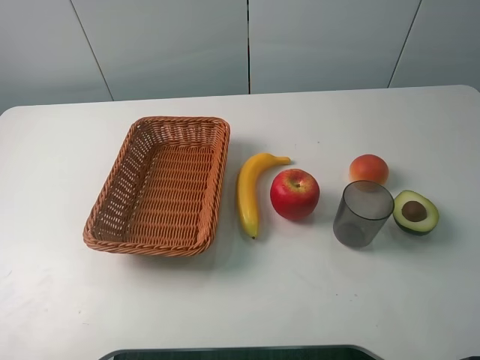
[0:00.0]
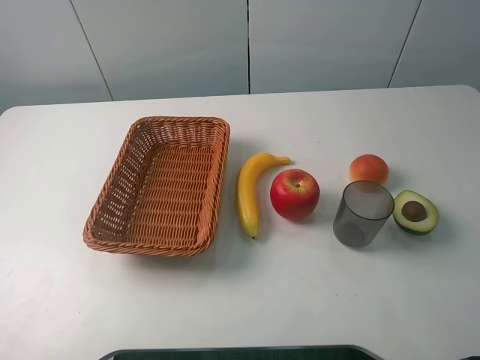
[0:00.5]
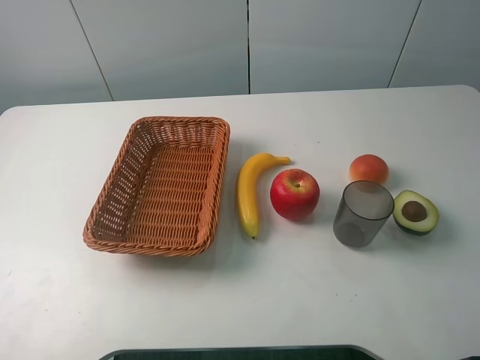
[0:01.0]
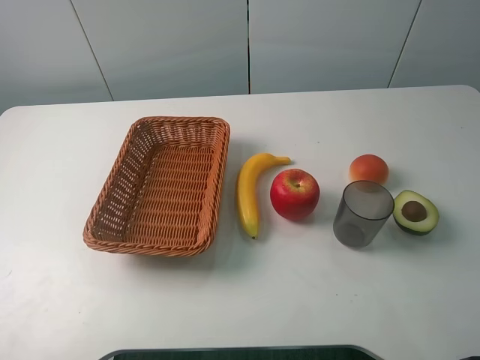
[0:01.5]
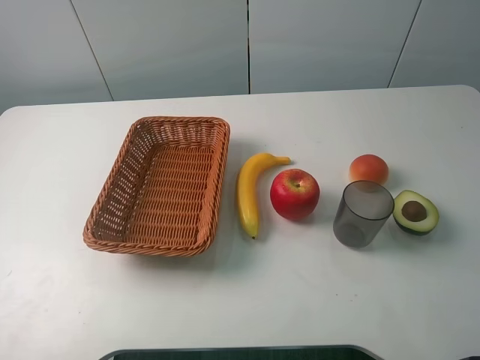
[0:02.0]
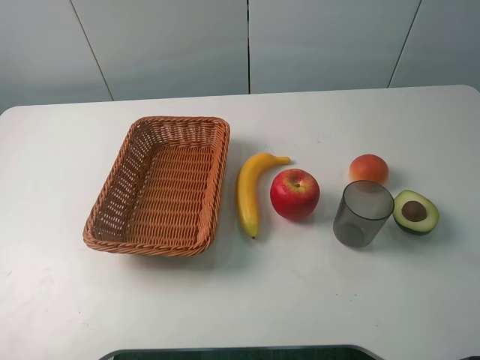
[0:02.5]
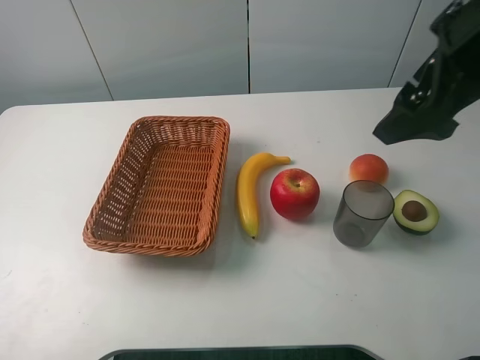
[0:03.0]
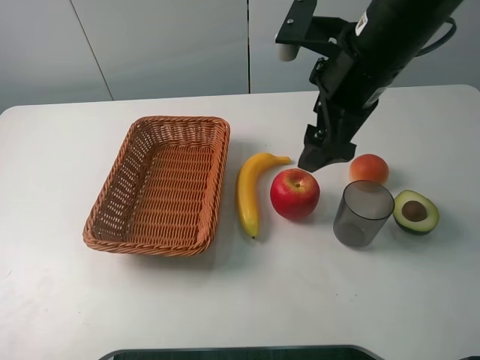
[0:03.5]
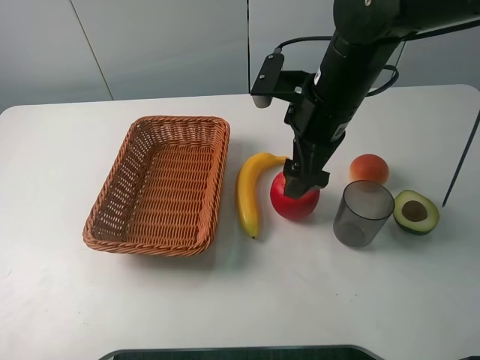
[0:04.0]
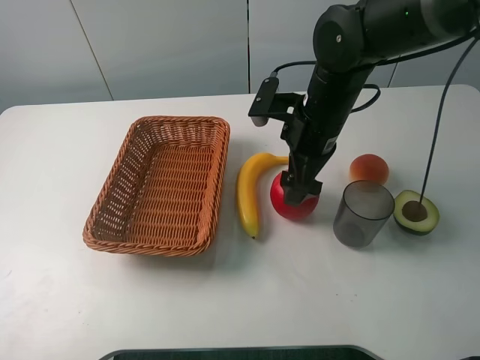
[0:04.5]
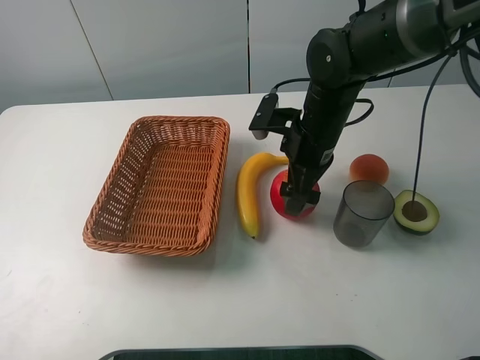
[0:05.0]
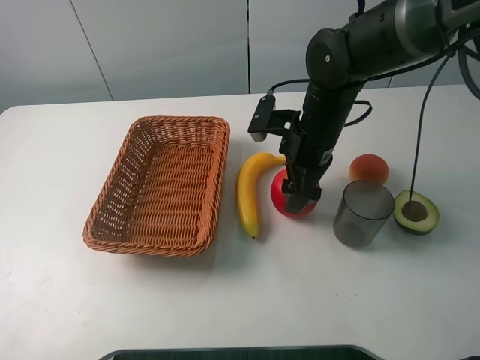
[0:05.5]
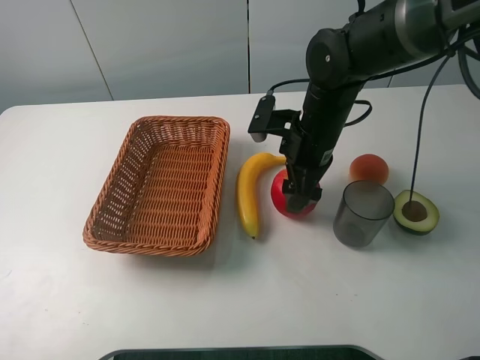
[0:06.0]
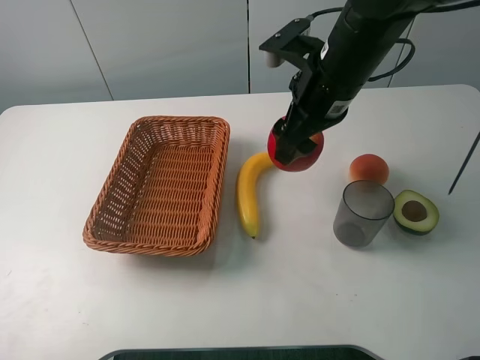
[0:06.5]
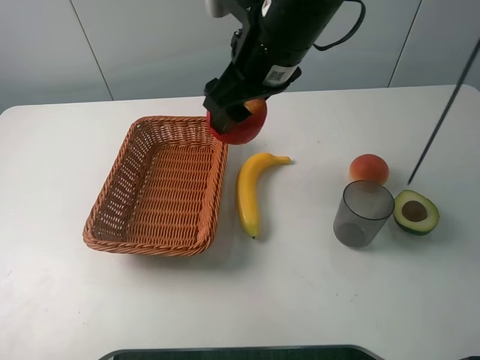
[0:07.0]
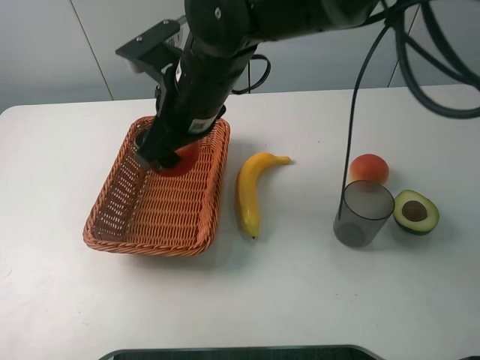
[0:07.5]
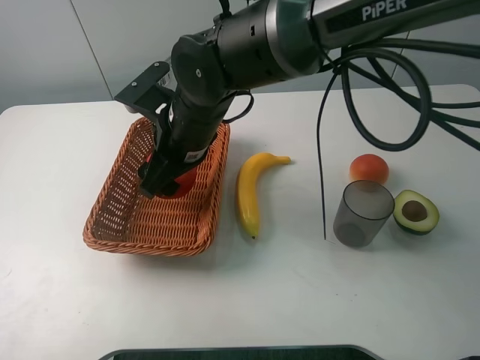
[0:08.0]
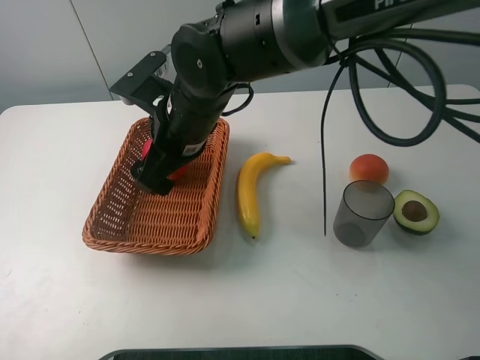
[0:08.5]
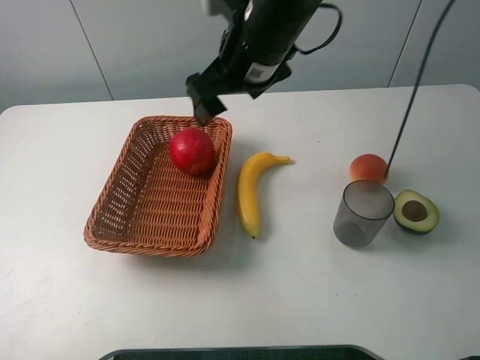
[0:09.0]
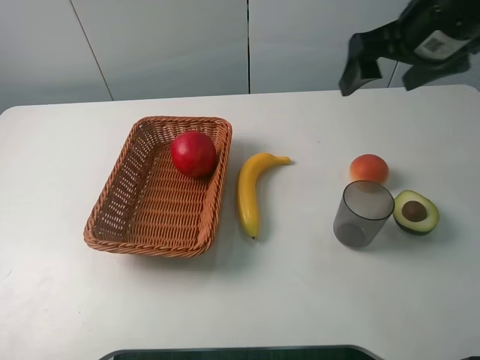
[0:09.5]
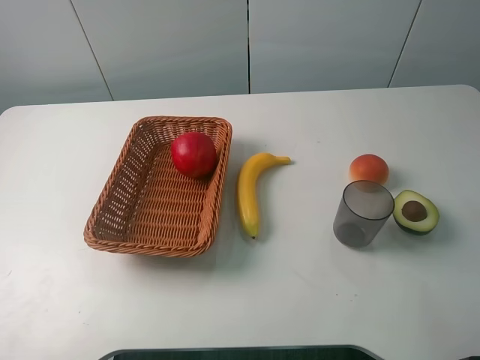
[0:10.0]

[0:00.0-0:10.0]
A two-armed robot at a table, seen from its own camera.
Task of the whole recording: randomly pick up an item from the table and put it in the basket.
Step, 0:00.0 to 0:05.0: Grasp the apple with the right gripper.
Step, 0:05.5 to 0:08.5: Place the apple into the basket with the right gripper.
0:00.0 to 0:02.0: Both grippers stay about where they are.
0:02.0 to 0:04.0: The right gripper shifts about 35 cm forward and to the left.
0:04.0 to 0:06.0: The right gripper goes approximately 5 cm downward, and closes its fingers.
0:06.0 to 0:08.0: The right gripper heads to the left, covering roughly 15 cm.
0:08.0 to 0:10.0: The right gripper travels to the right and upward by roughly 40 cm, and opens.

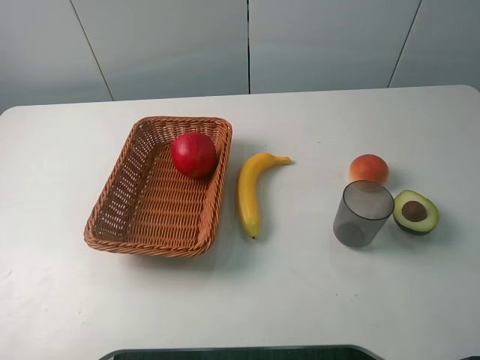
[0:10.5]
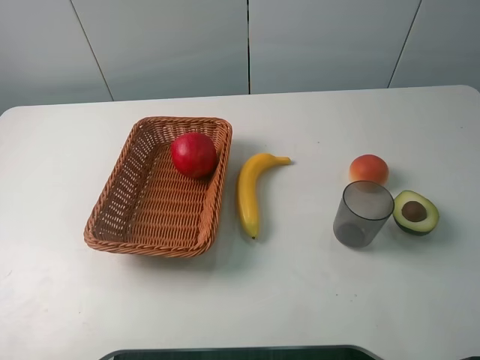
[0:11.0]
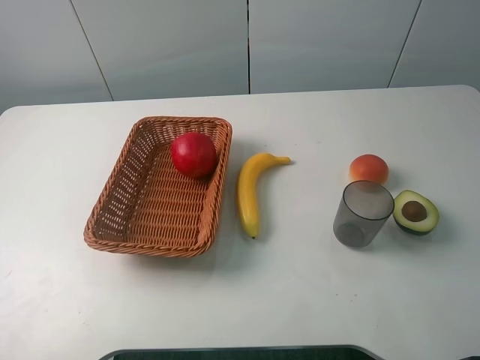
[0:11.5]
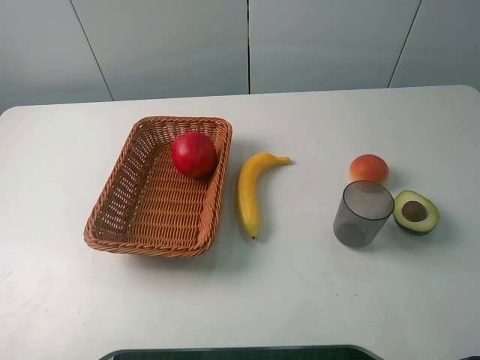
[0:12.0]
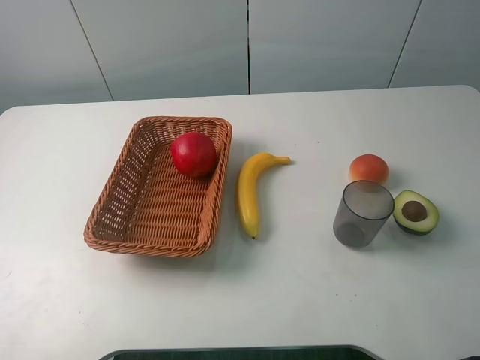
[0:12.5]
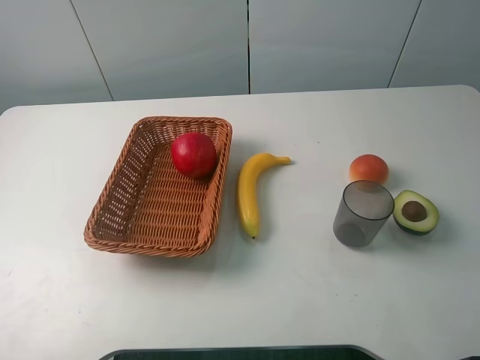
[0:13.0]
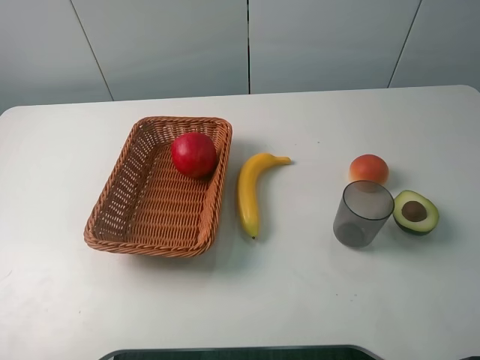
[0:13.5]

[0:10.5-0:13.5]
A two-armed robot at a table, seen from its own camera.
Task of the whole recording: randomly pick up an item from the table and put it in the basket.
0:12.0 to 0:13.5: The two grippers keep their place.
